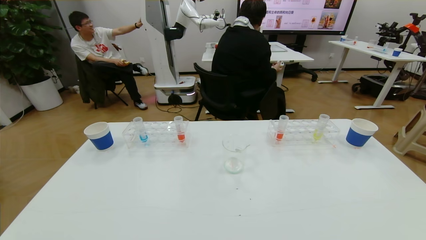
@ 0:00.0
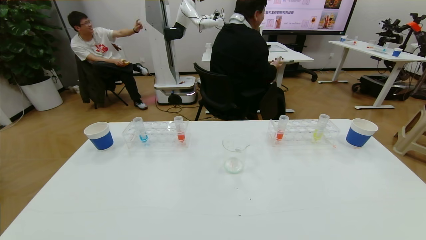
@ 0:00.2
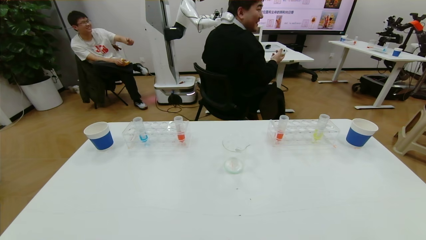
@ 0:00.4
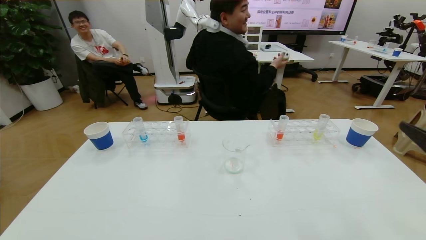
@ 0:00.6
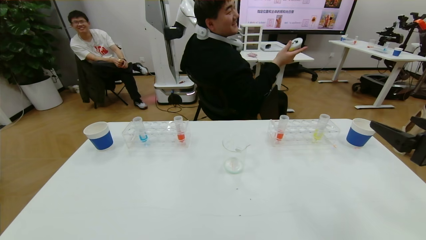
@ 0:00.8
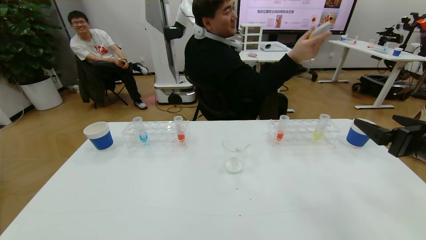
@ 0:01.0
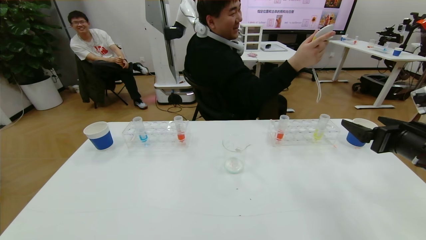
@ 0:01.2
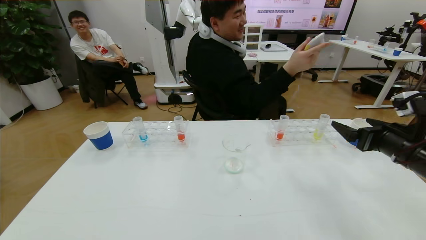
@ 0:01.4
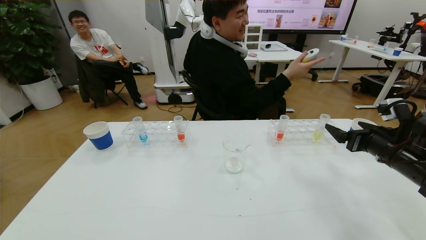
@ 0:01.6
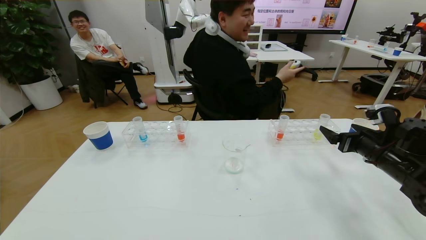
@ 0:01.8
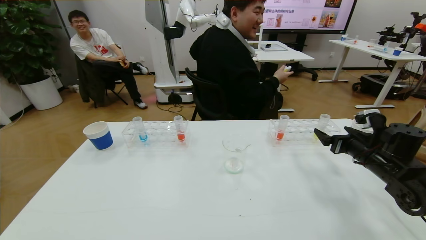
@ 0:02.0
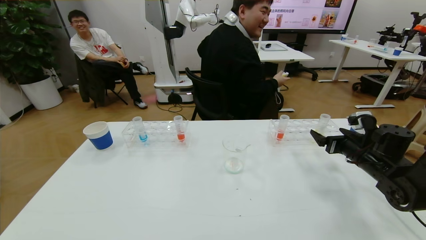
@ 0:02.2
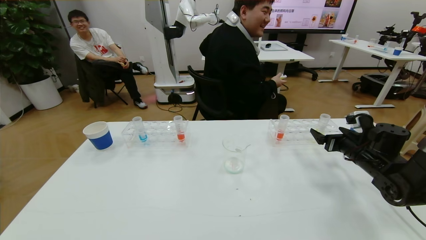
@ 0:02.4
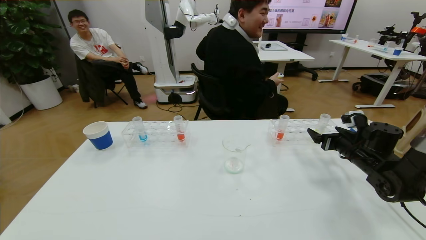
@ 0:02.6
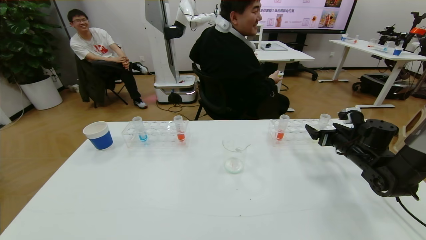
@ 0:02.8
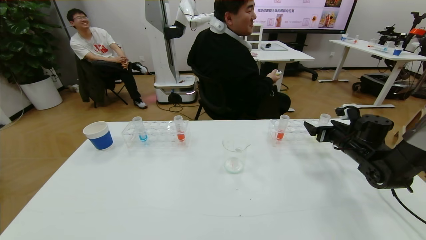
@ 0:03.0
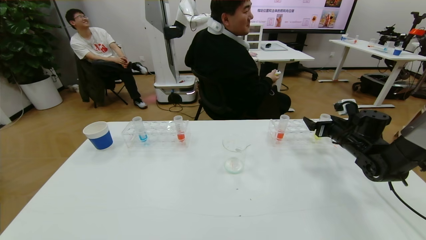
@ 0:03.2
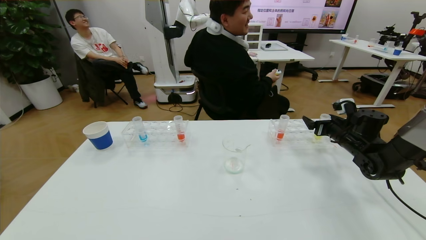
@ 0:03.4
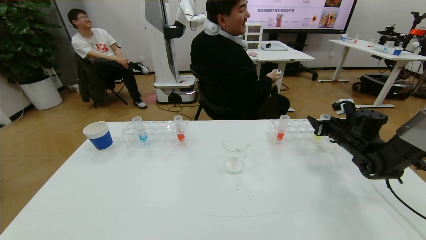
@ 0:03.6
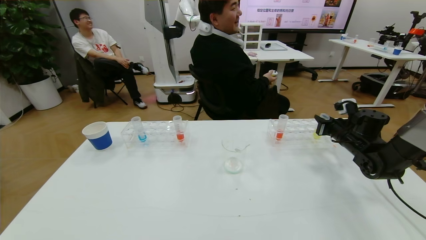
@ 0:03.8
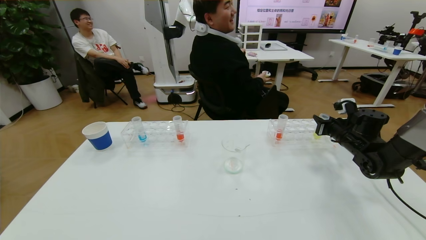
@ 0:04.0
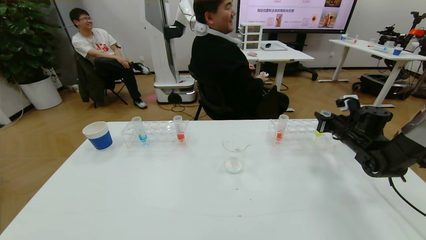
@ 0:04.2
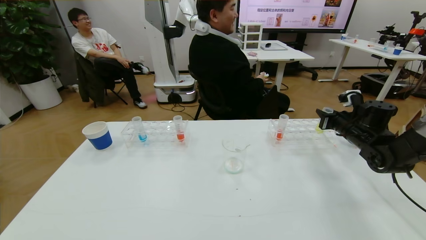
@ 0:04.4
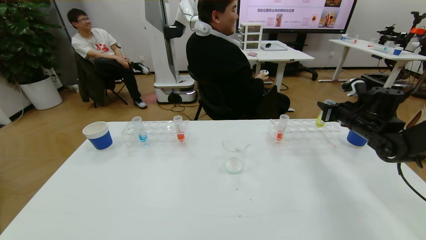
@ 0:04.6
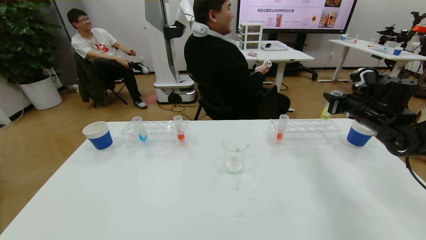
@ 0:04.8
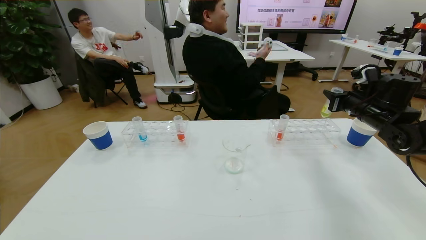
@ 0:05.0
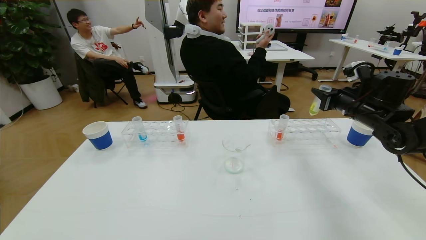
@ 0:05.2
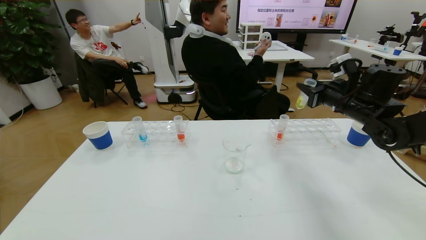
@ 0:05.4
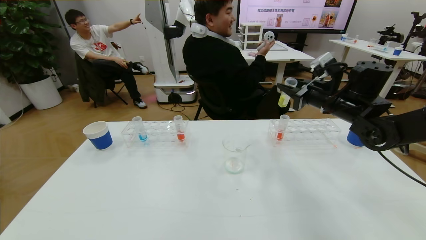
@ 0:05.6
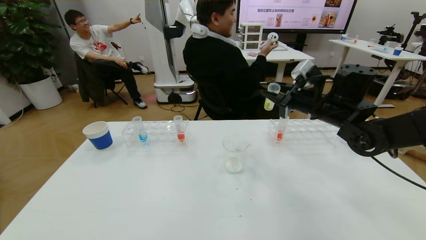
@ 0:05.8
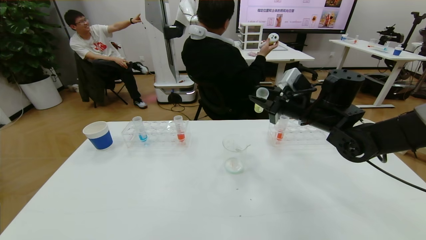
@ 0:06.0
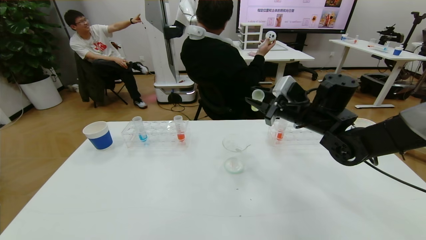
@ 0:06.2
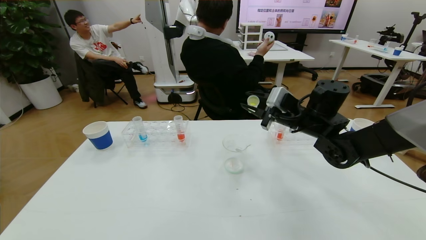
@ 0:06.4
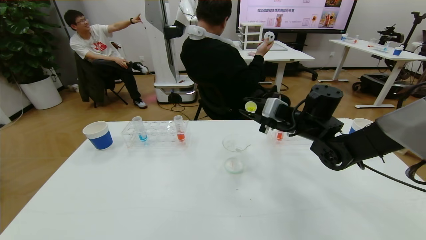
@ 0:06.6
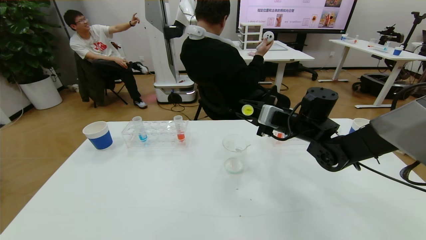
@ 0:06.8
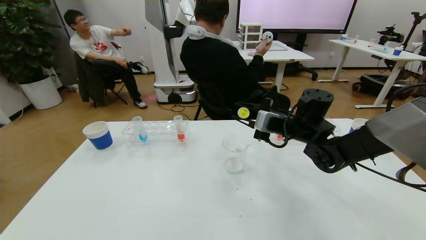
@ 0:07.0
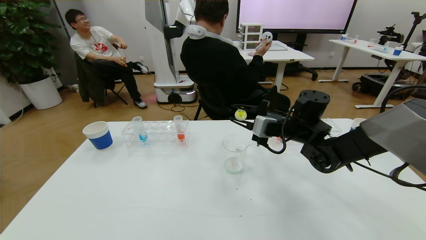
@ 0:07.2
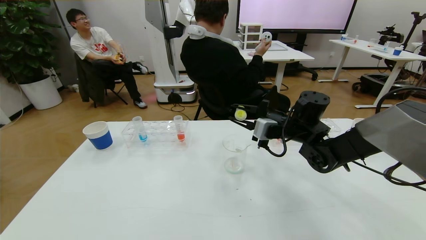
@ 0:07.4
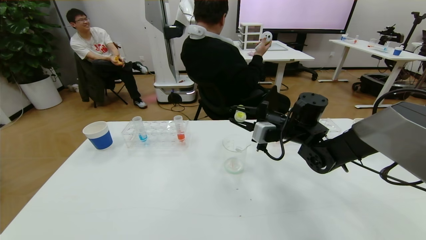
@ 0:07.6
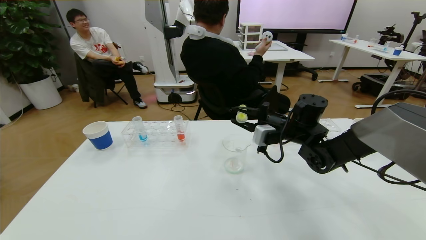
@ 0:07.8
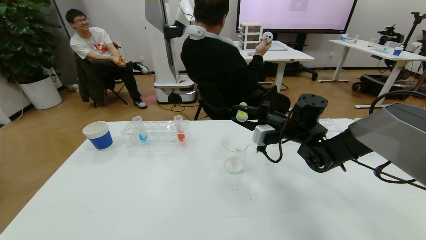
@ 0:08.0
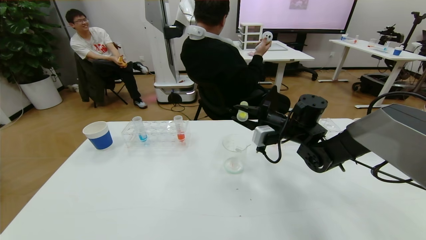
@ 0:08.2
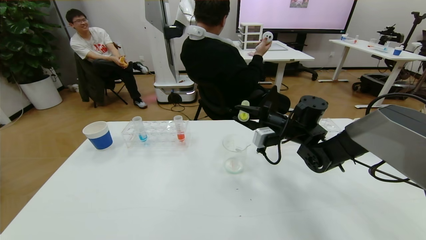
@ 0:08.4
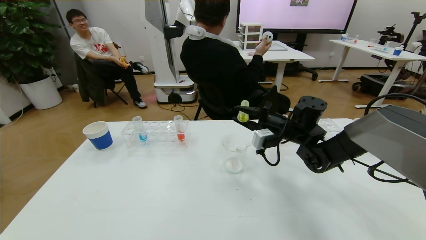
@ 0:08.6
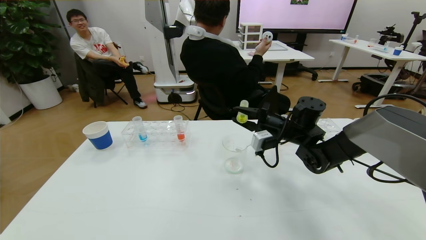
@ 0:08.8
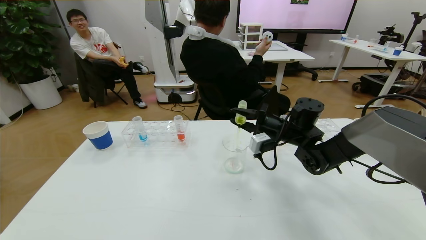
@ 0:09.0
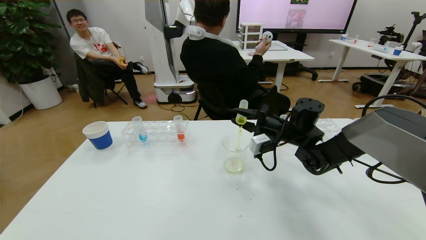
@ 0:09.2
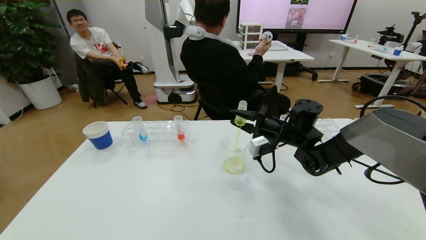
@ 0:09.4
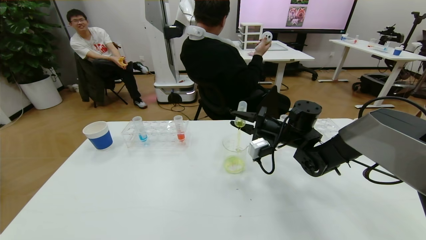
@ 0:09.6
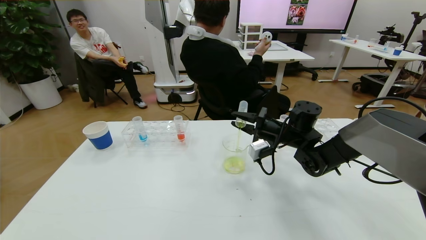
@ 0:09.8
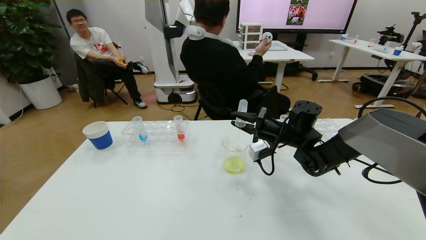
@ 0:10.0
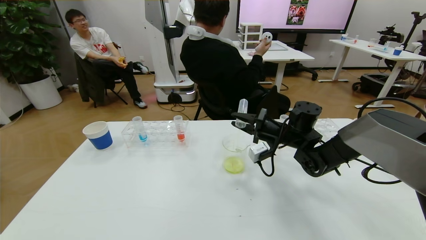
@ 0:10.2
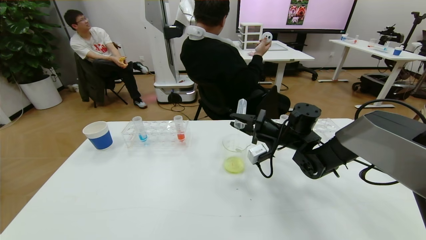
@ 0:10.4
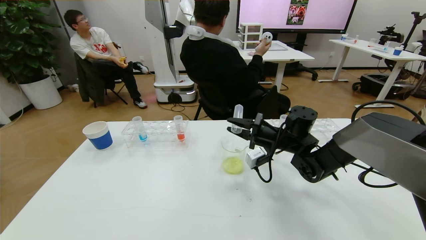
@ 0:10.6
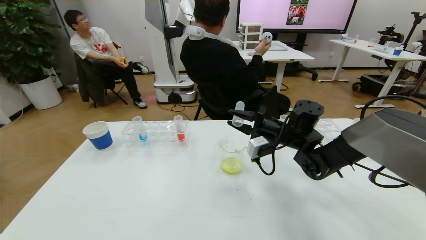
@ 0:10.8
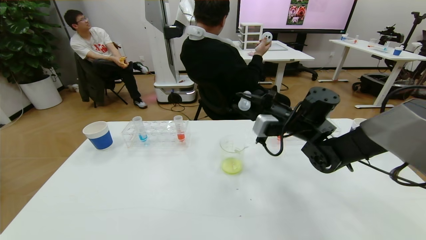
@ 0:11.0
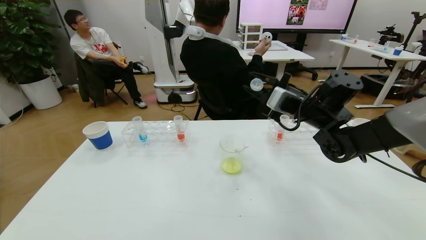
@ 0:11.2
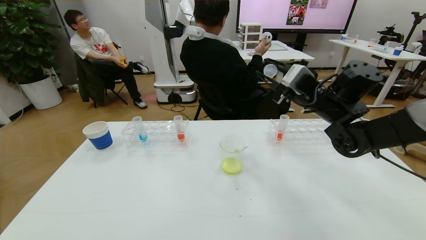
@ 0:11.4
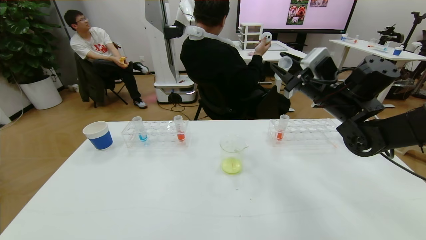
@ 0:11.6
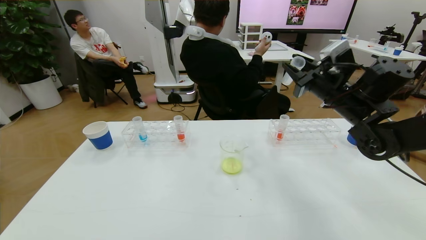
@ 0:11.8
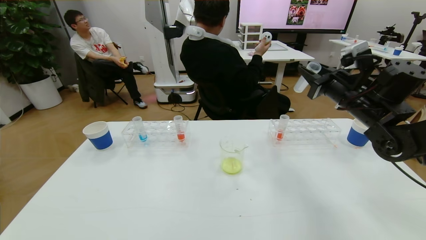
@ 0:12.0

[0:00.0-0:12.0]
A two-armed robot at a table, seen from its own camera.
Task of the whole recording: pick up the test tube with yellow pigment and the test tube with blue pigment by grippers and pour them into the beaker.
0:00.0 to 0:01.6: The right gripper shifts approximately 30 cm forward.
0:01.6 to 0:03.0: The right gripper goes some 15 cm forward and downward.
0:03.0 to 0:04.4: The right gripper closes its fingers.
0:04.4 to 0:06.0: The right gripper heads to the left and upward, covering about 20 cm.
0:06.0 to 0:07.6: The right gripper is displaced downward by about 5 cm.
0:07.6 to 0:09.0: There are only small adjustments of the grippers.
0:09.0 to 0:10.4: The grippers stay close to where they were, moving slightly.
0:10.4 to 0:12.0: The right gripper moves upward and to the right, roughly 15 cm.

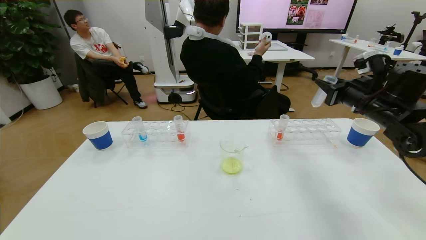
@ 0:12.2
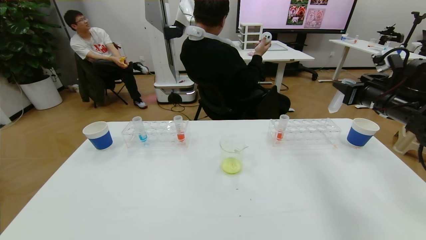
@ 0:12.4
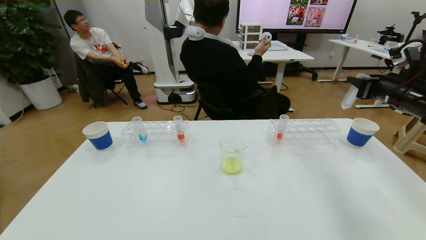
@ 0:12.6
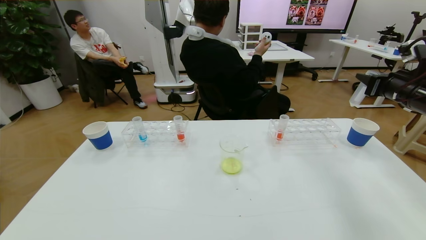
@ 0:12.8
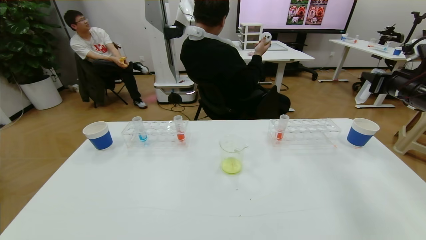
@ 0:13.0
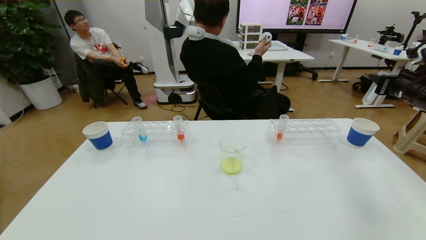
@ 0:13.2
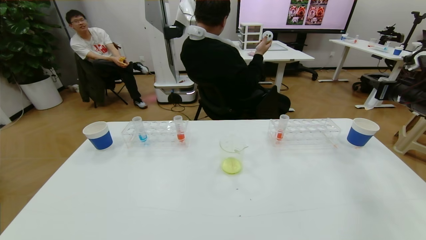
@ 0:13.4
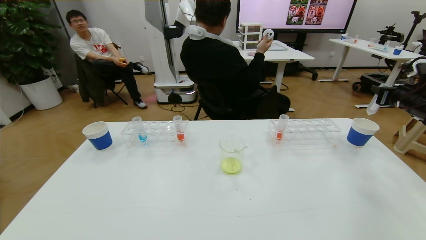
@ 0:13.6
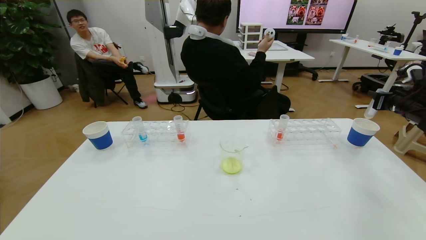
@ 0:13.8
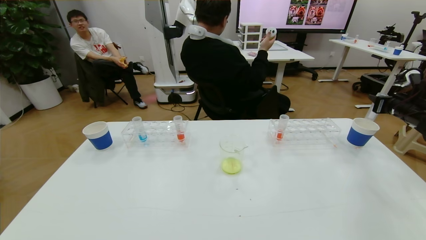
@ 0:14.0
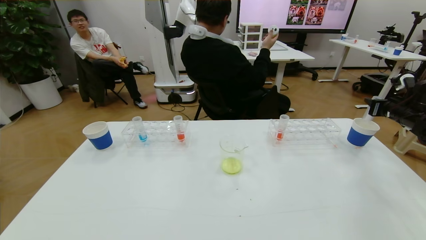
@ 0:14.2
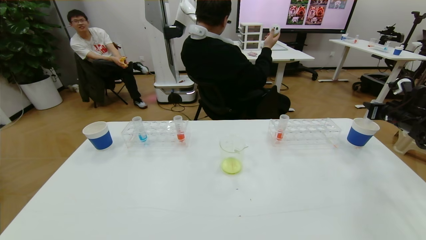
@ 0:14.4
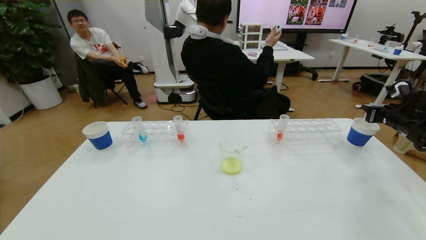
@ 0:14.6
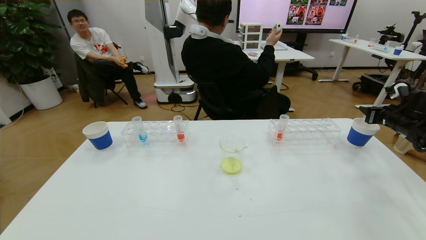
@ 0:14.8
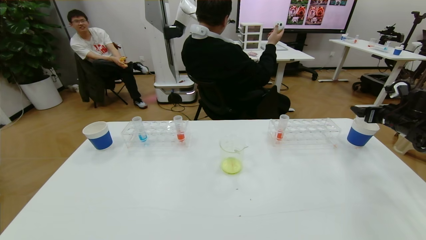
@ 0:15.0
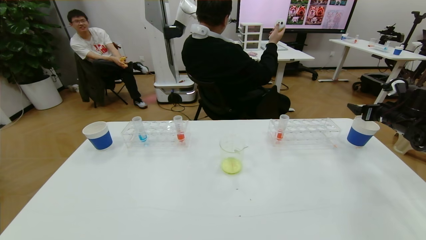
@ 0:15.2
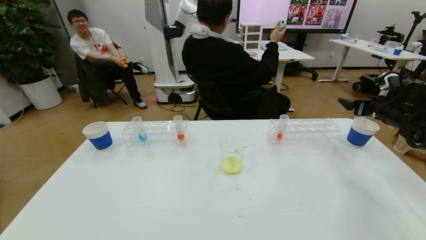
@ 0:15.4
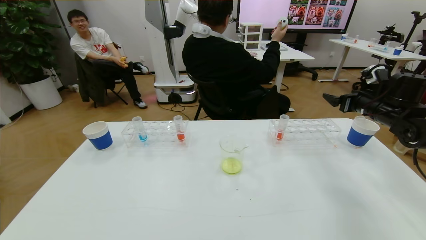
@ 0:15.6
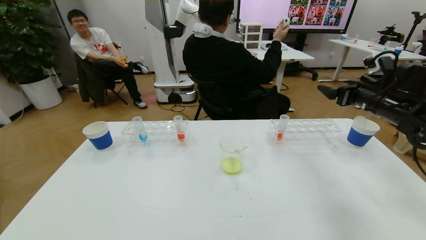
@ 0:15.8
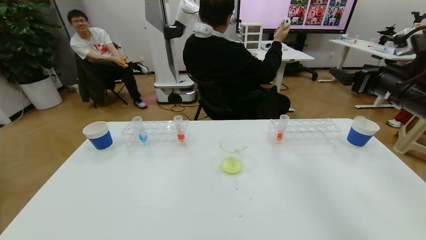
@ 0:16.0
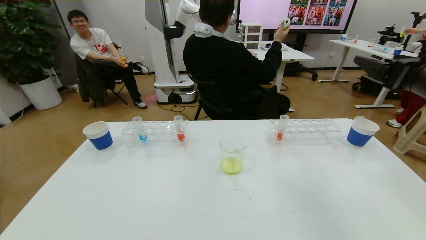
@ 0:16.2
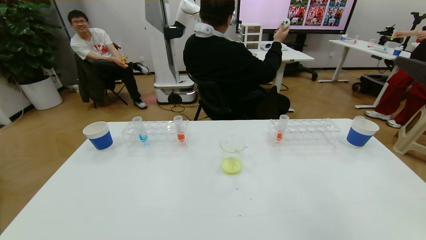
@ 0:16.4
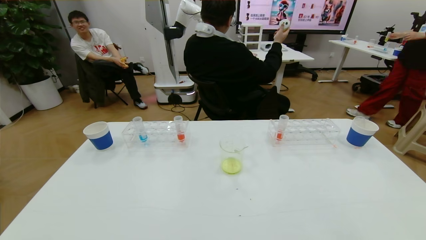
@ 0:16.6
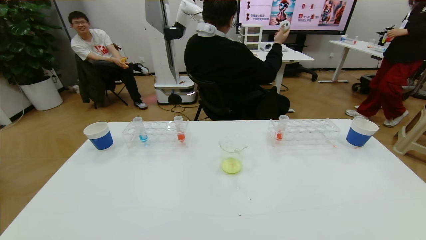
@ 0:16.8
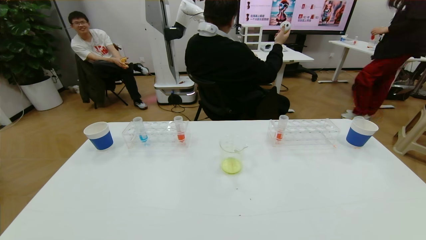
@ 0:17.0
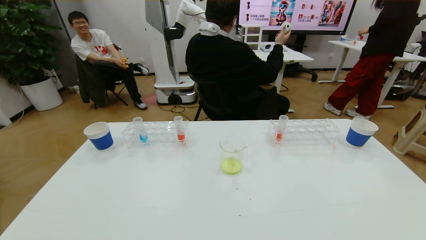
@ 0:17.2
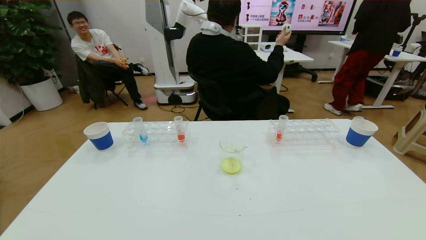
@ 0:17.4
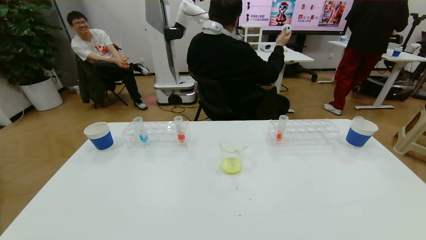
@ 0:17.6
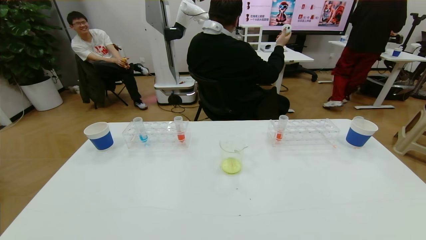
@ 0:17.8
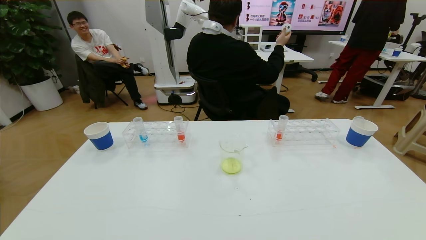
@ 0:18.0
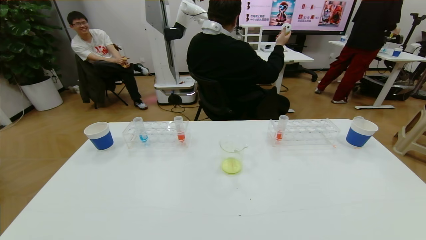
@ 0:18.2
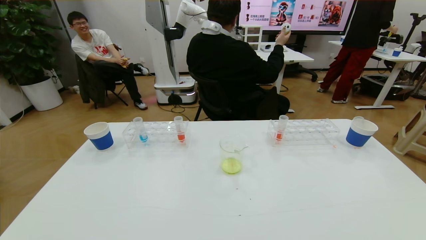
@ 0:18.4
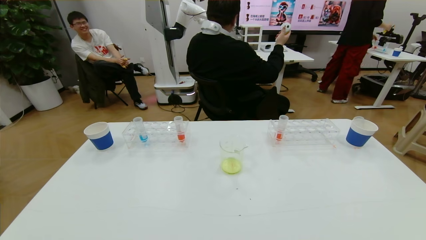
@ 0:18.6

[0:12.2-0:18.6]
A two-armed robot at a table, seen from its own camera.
Task of the whole recording: pick up the test tube with yellow pigment and the test tube with blue pigment by grippers and pour them into the beaker.
0:12.2 to 0:13.8: The right gripper travels to the right by approximately 15 cm.
0:13.8 to 0:15.4: The right gripper opens.
0:15.4 to 0:17.0: The right gripper is displaced backward by about 40 cm.
0:17.0 to 0:18.6: The right gripper is displaced downward by some 20 cm.
